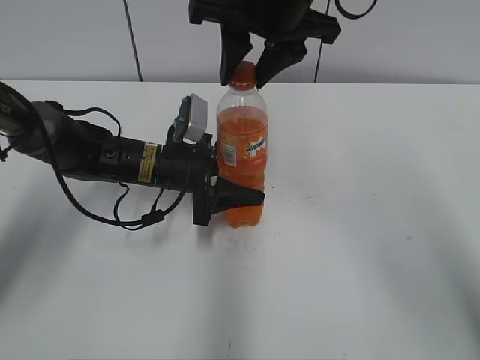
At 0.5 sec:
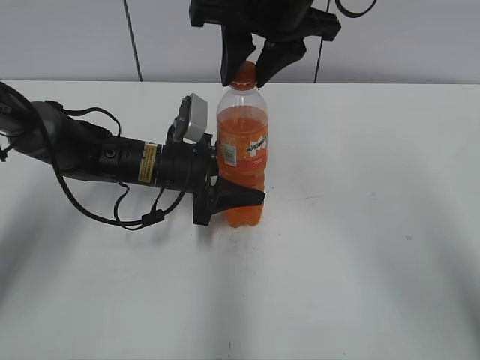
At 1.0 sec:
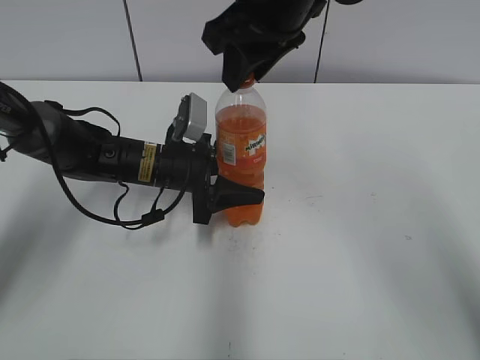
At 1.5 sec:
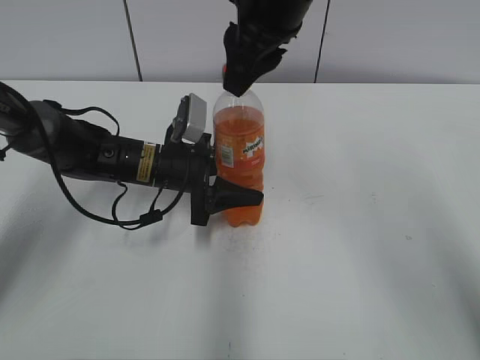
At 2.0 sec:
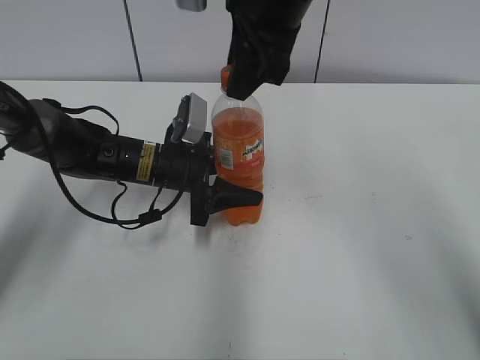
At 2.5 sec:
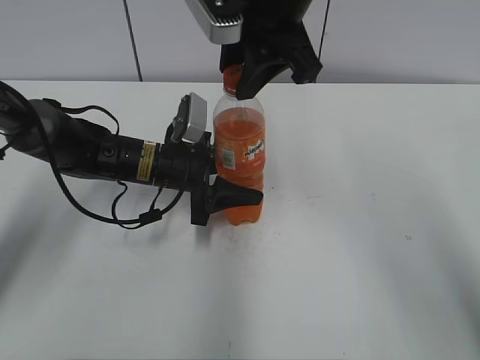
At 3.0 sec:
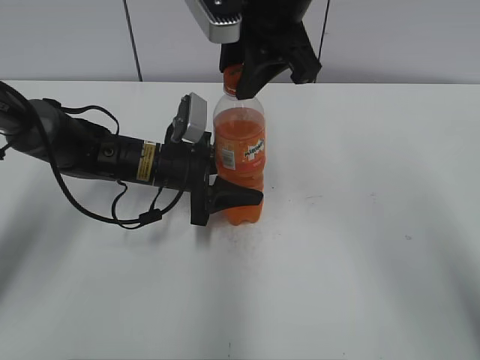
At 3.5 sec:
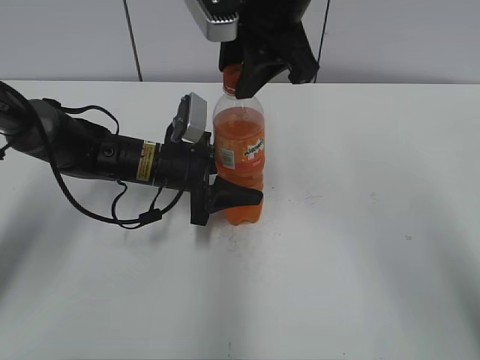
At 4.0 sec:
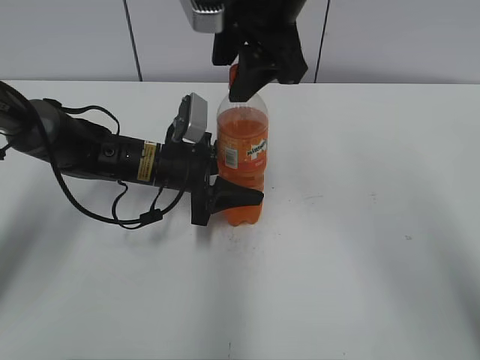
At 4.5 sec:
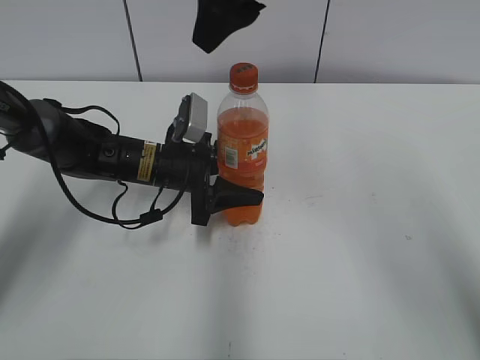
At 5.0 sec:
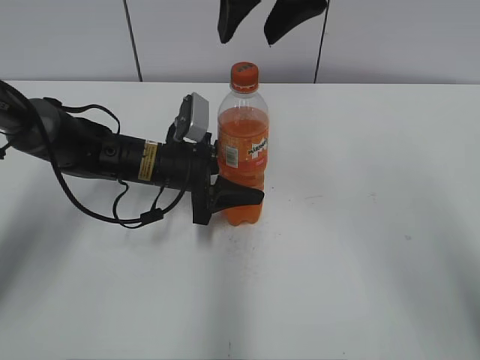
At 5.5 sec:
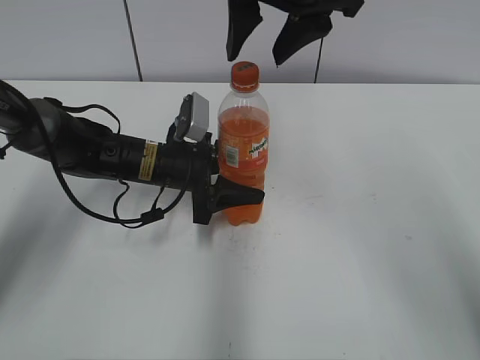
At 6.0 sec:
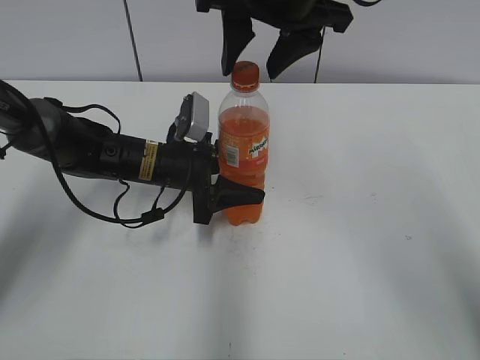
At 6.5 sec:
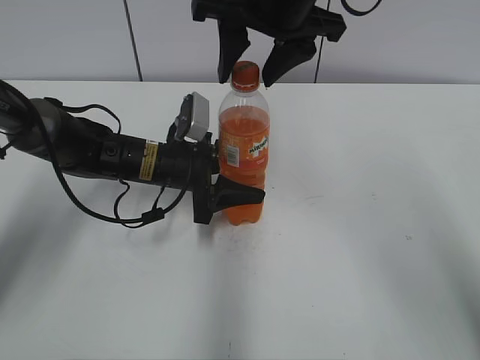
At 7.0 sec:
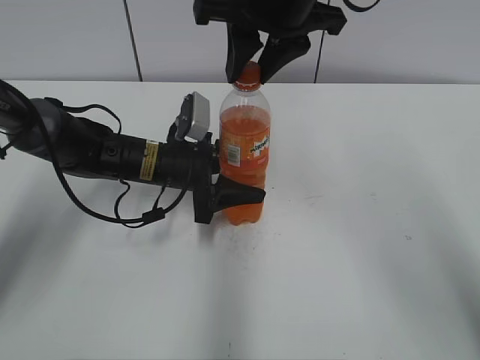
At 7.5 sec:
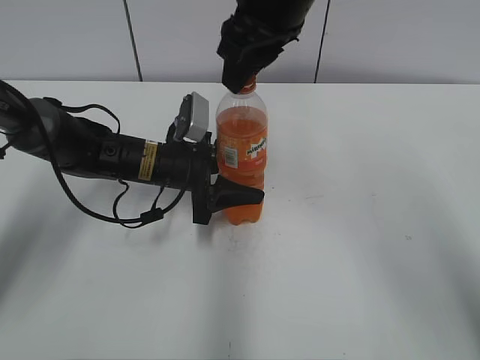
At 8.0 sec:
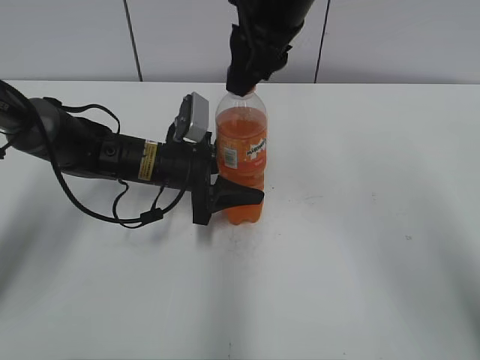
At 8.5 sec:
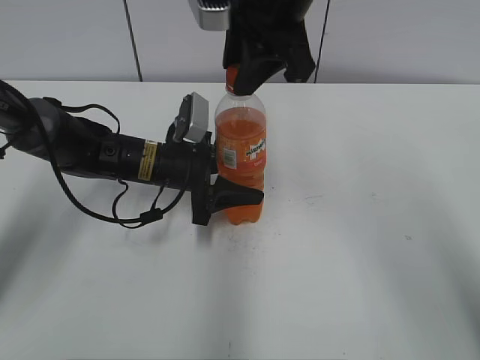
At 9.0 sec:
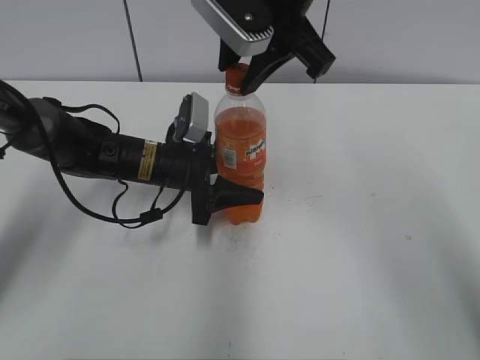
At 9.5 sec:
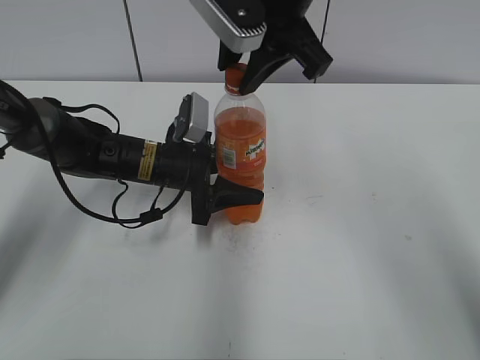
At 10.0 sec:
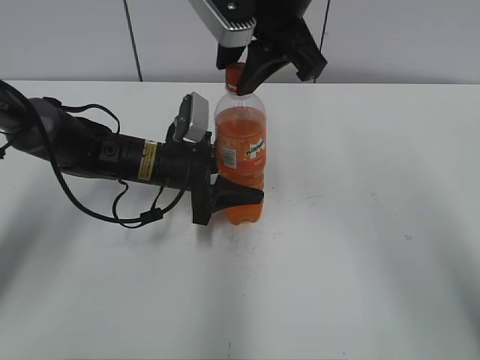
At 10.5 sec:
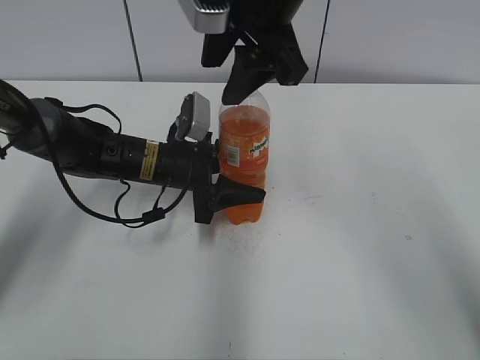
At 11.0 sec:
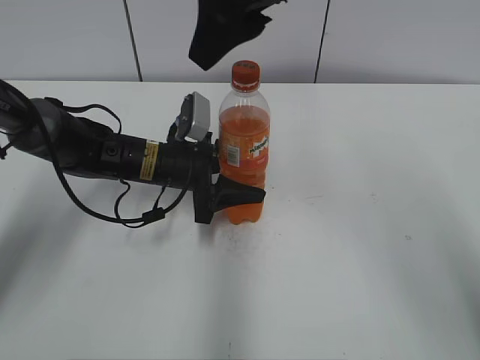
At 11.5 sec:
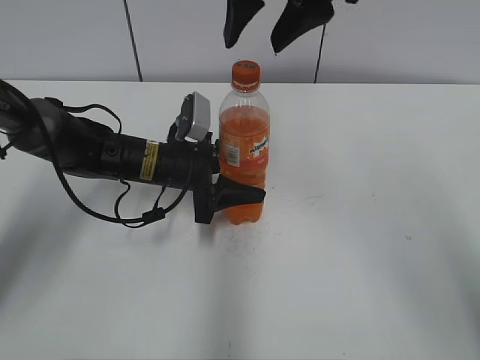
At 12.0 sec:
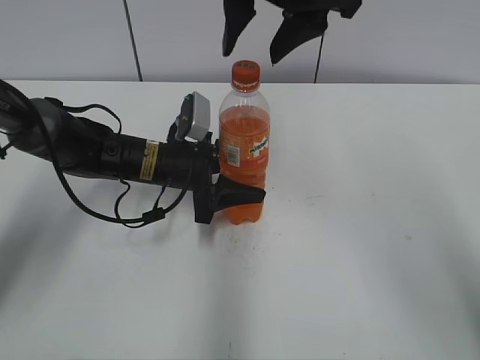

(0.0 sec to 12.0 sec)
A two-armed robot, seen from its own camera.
2.0 sec - 4.0 sec: The right gripper opens its fingers.
6.0 sec - 8.0 sec: The right gripper closes.
10.0 sec - 12.0 sec: The right gripper opens.

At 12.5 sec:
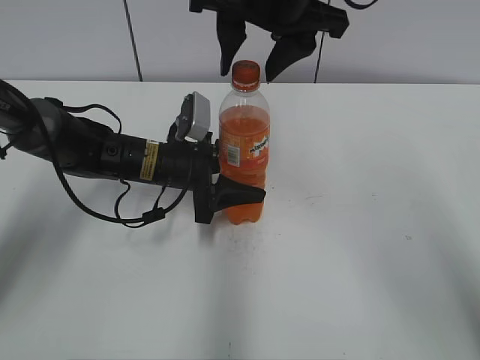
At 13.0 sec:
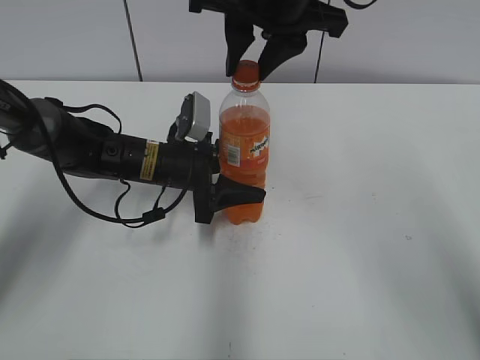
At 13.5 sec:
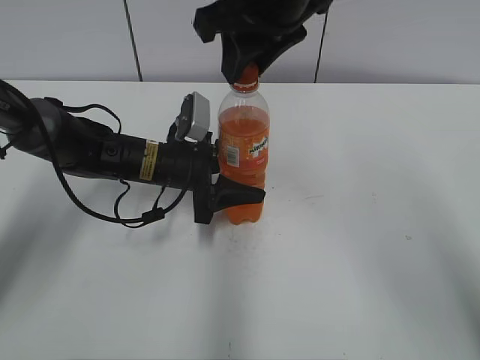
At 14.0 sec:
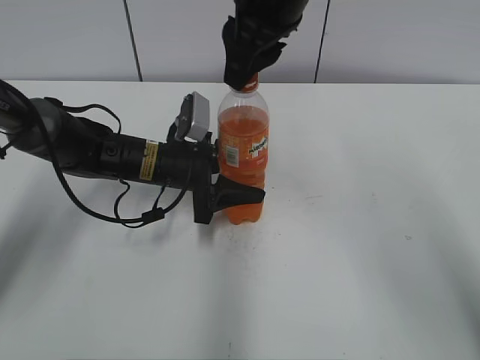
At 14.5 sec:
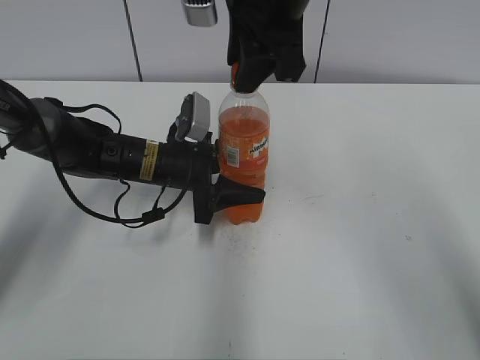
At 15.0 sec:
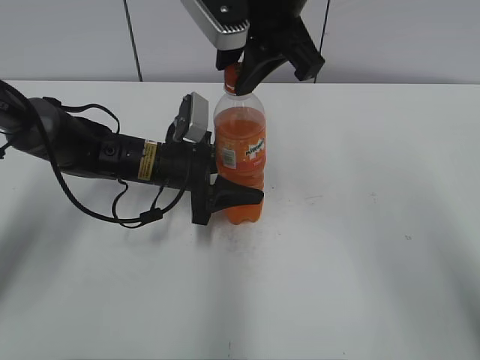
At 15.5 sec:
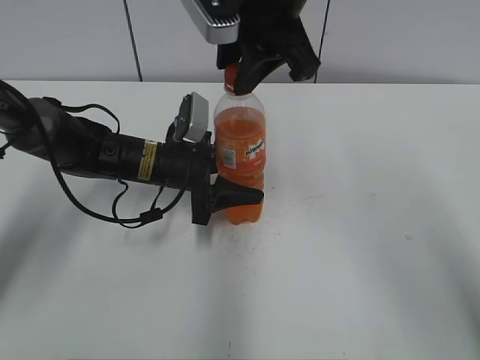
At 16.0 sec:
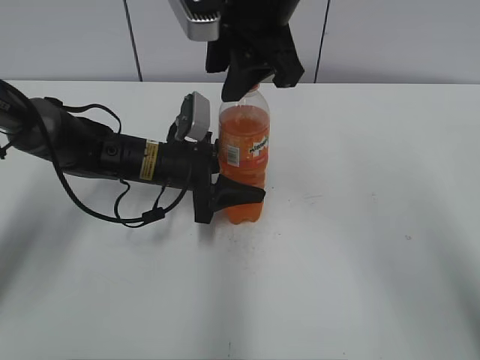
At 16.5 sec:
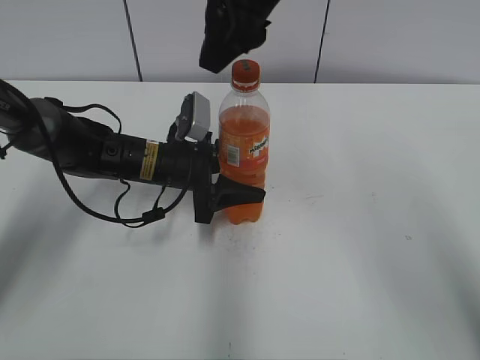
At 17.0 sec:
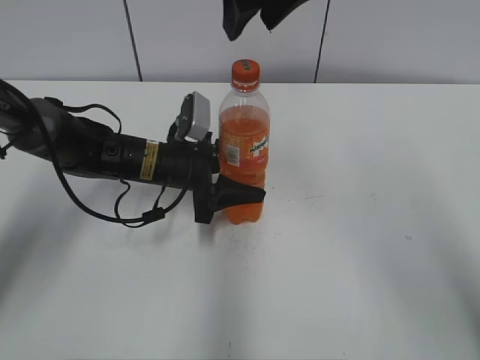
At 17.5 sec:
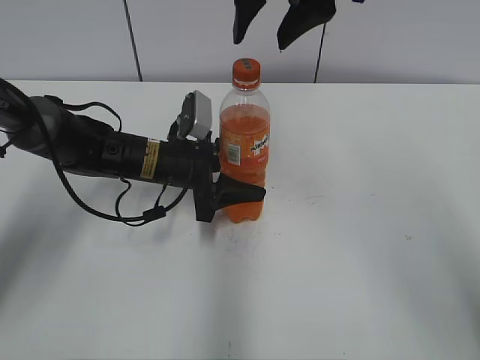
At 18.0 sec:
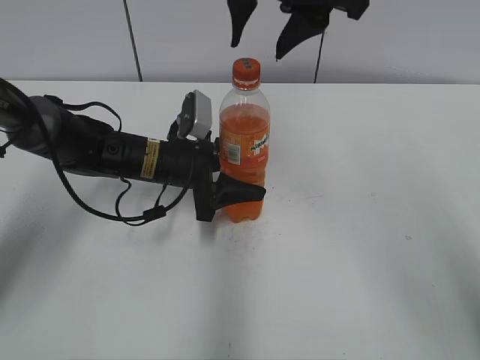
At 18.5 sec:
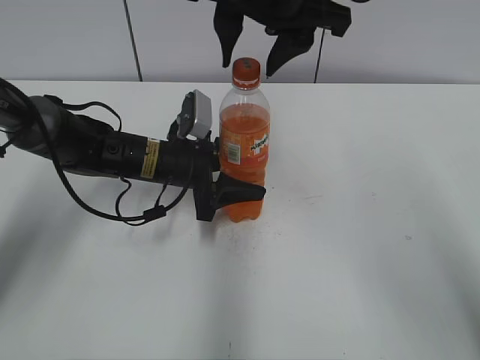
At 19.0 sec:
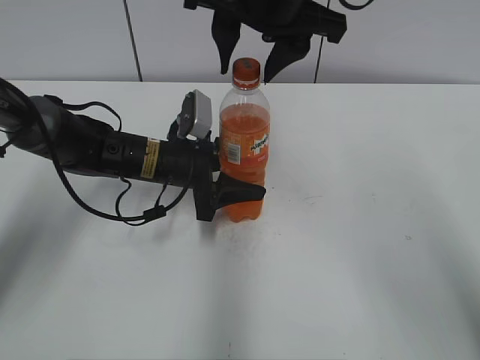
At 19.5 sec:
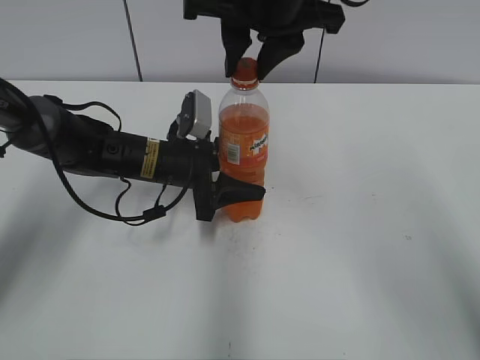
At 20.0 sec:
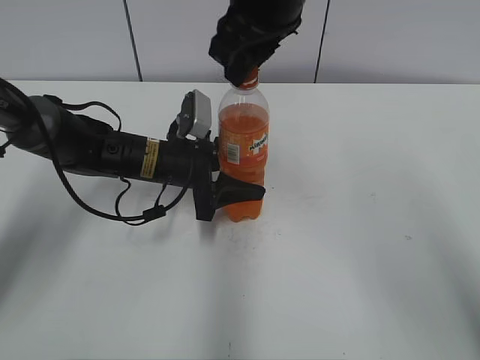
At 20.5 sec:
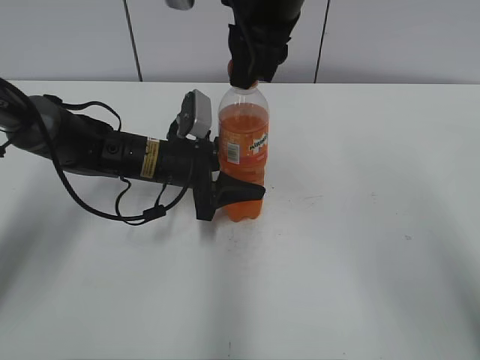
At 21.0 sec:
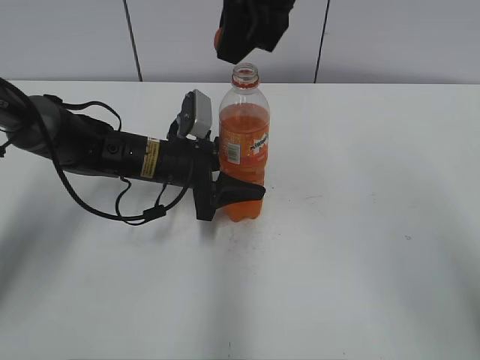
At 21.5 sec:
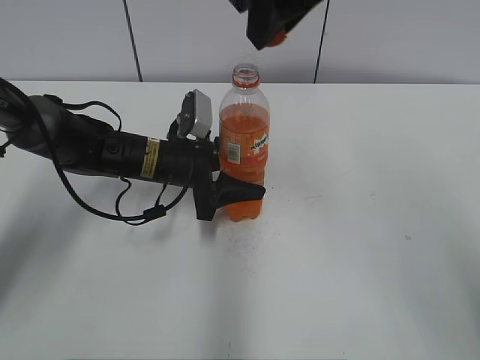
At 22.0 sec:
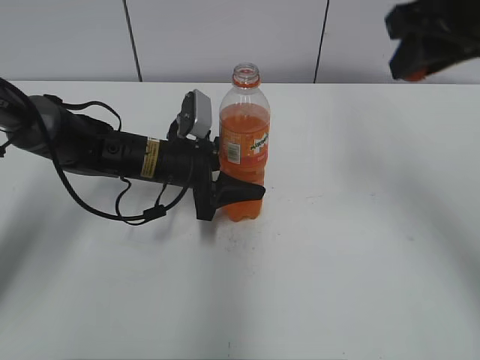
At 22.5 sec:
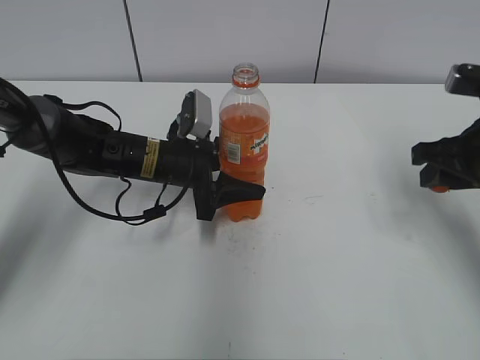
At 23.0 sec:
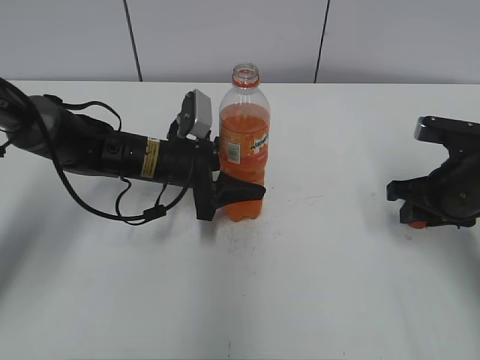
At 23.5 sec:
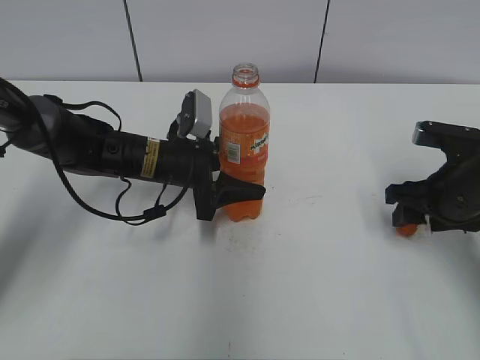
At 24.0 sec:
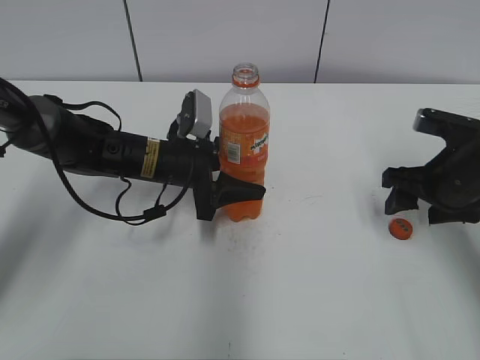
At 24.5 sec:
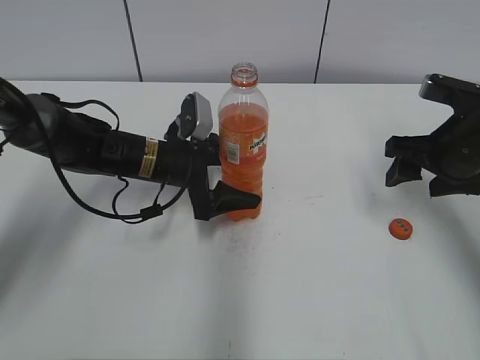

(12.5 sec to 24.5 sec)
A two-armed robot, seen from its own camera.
Step, 21.0 sec - 23.5 sec: Place the bottle cap on the right.
12.5 sec - 14.5 sec: The right gripper closes its fingers.
14.5 sec - 16.5 sec: The right gripper opens.
18.5 sec - 20.5 sec: The right gripper closes its fingers.
20.5 sec - 22.5 sec: The right gripper shifts some 25 cm to the right and downward.
22.5 sec - 24.5 sec: The right gripper opens. The left gripper opens up.

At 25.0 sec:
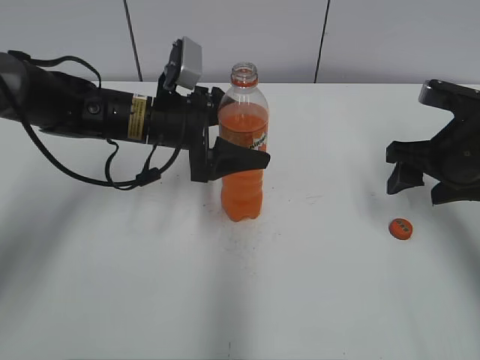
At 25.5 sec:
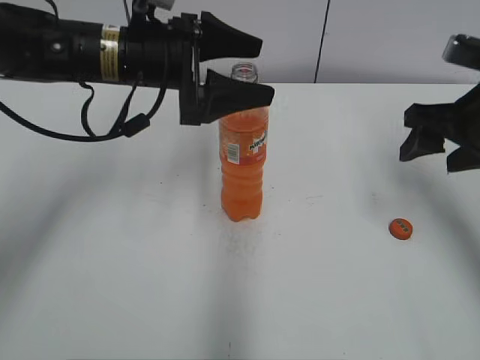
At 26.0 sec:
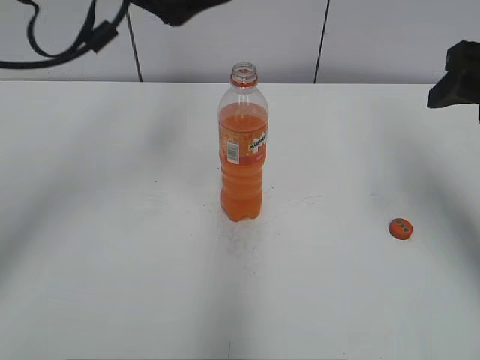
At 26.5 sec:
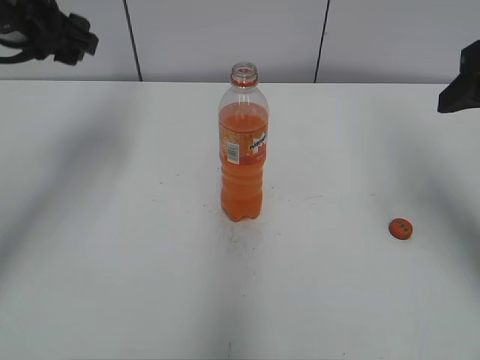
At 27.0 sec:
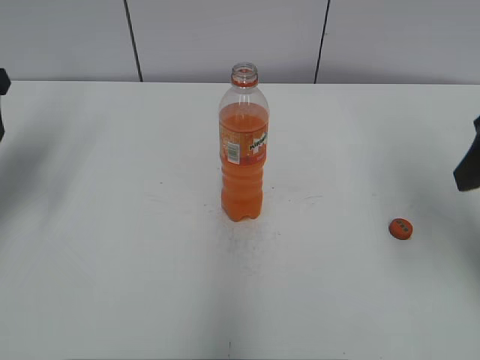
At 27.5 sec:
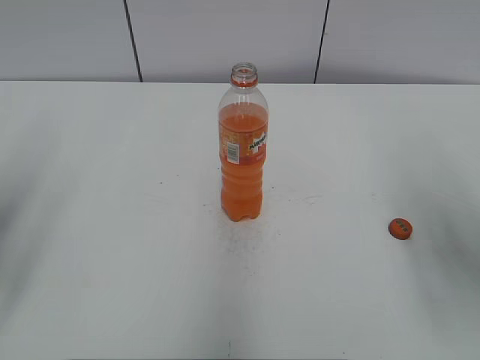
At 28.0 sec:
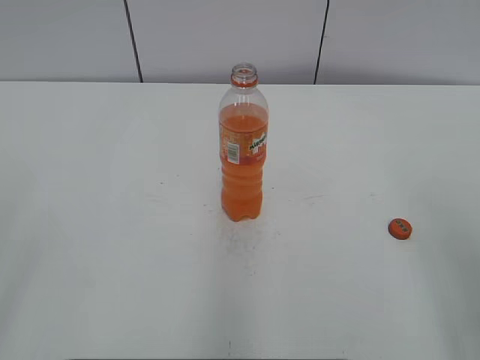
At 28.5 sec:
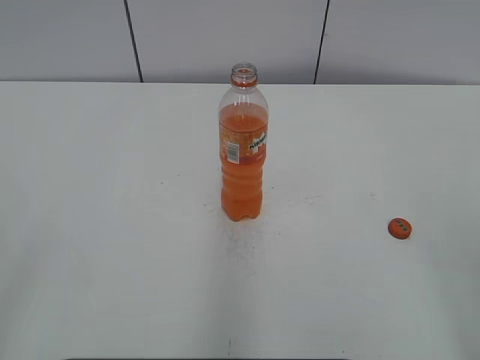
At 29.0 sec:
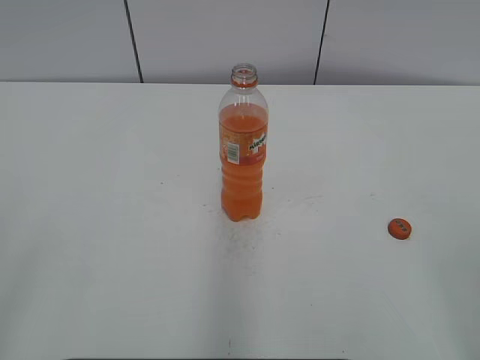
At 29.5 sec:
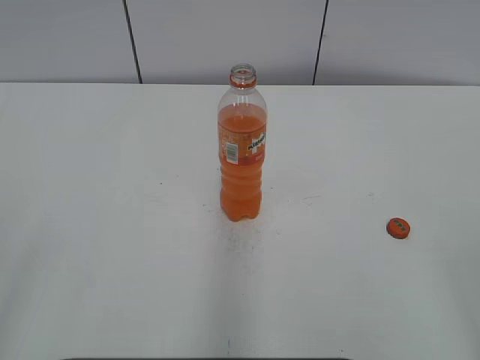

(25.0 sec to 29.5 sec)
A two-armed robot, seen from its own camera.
25.0 sec - 27.0 sec: The right gripper travels upward and backward by roughly 15 cm. Meanwhile the left gripper travels to the left and upward by approximately 25 cm.
27.0 sec - 29.5 sec: Both grippers travel together backward, approximately 30 cm.
